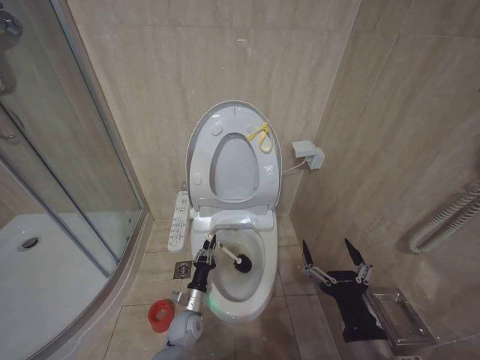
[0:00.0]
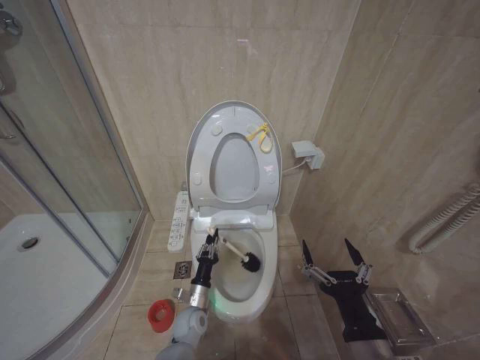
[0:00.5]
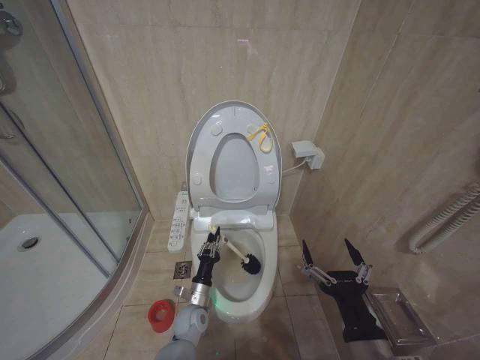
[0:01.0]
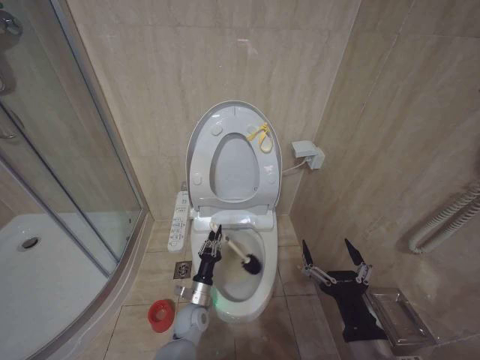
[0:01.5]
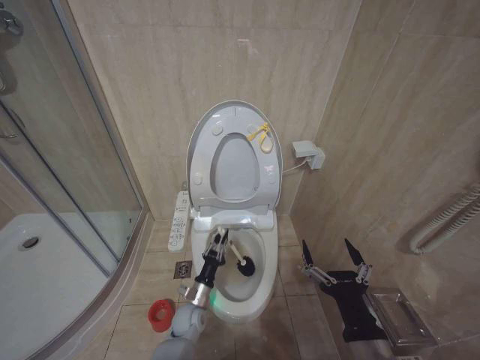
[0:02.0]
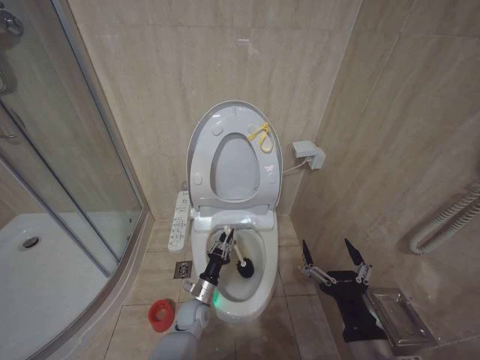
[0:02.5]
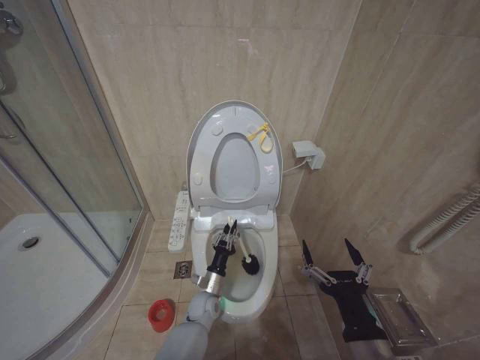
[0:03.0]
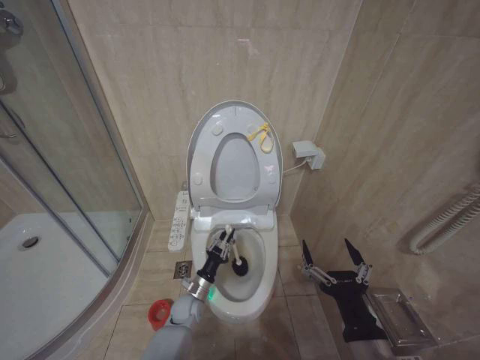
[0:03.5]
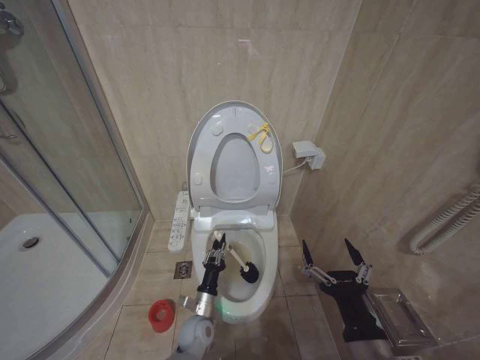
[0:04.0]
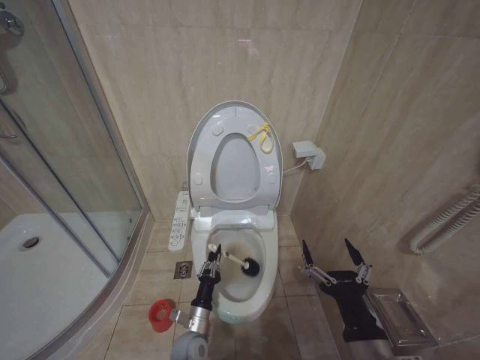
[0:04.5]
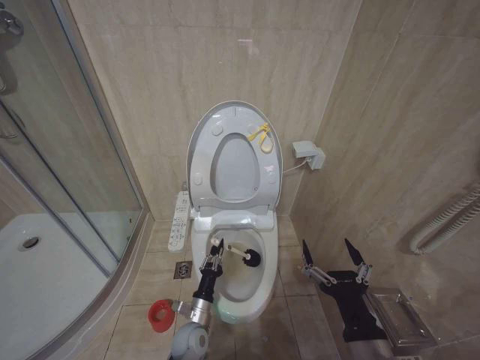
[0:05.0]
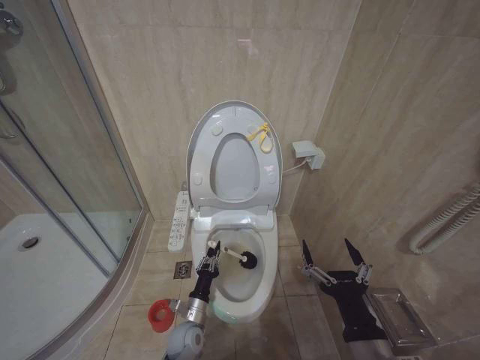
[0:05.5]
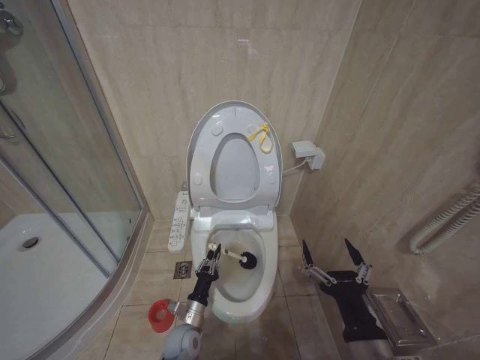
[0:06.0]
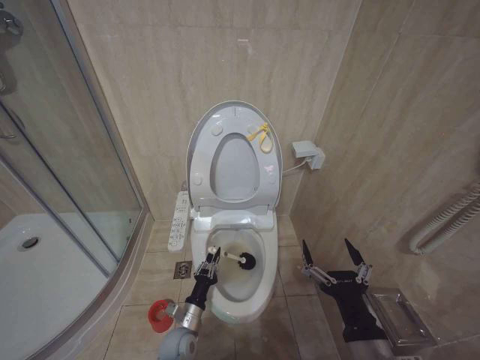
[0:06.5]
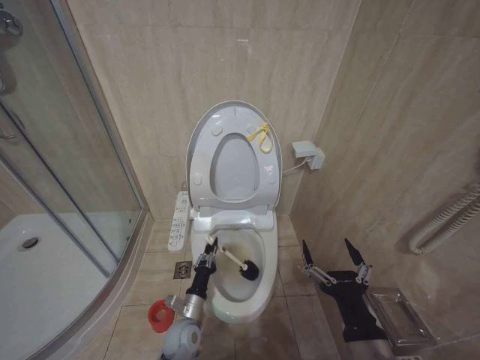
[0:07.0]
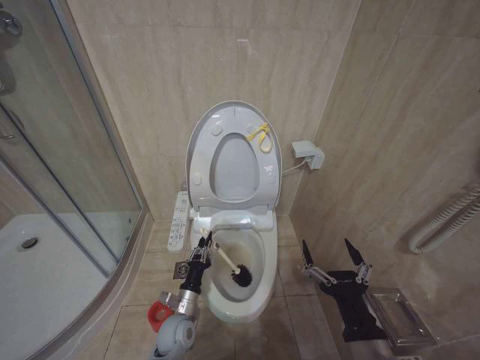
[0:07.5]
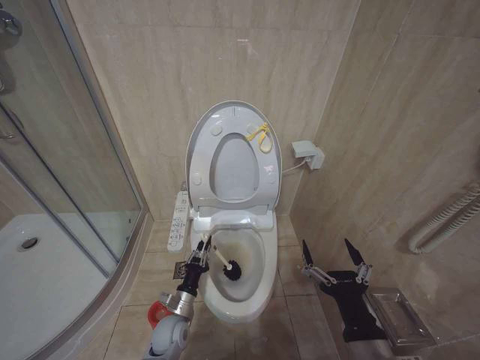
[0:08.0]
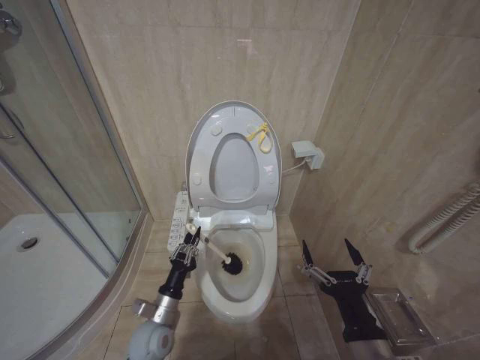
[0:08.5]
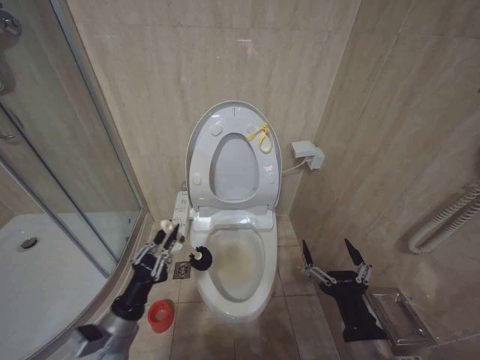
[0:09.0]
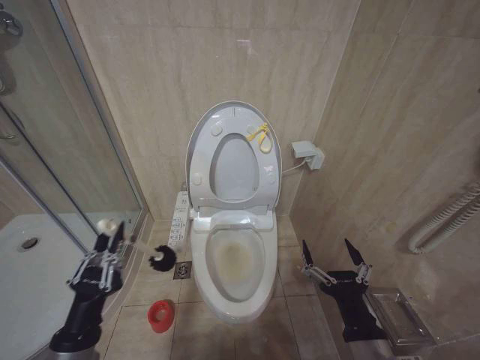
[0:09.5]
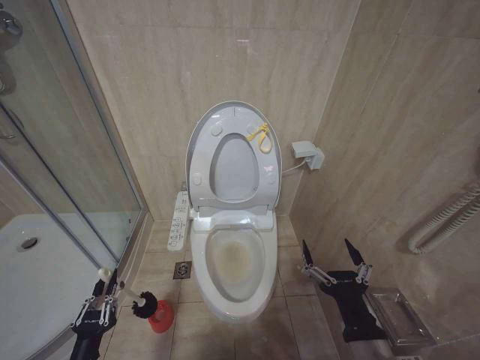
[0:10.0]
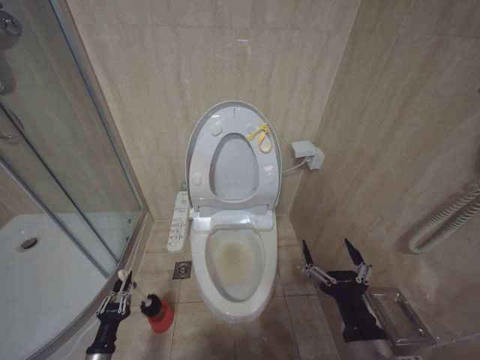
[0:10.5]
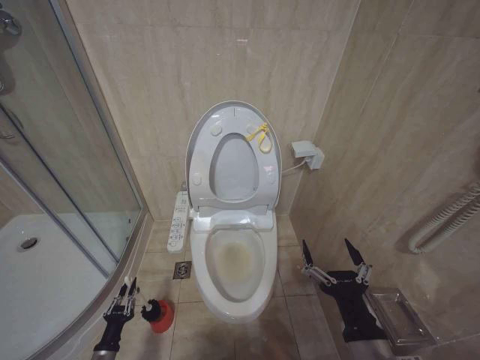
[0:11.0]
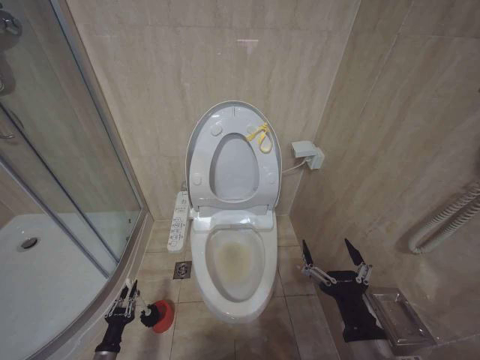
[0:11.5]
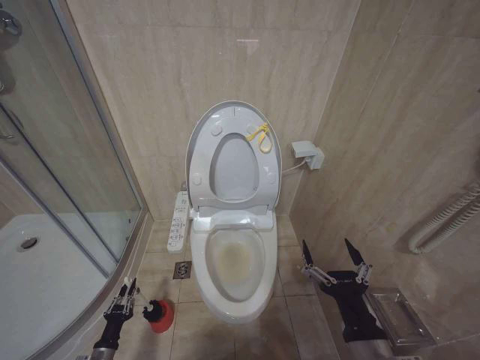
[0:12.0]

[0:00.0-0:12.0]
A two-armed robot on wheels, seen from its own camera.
Task of the whole recording: Open the toilet lid, clean the toilet bowl with a toilet brush, close the toilet lid, and flush.
0:00.0 to 0:02.0: The grippers stay close to where they were, moving slightly.
0:04.0 to 0:06.0: The grippers make only small movements.
0:06.0 to 0:08.0: The grippers stay close to where they were, moving slightly.
0:08.0 to 0:10.0: The left gripper moves backward, to the left and upward, some 25 cm.
0:10.0 to 0:12.0: The left gripper moves downward, forward and to the left, some 20 cm.

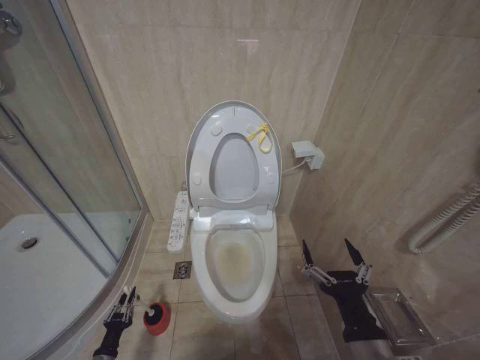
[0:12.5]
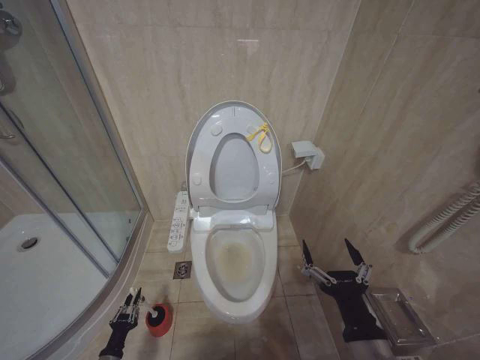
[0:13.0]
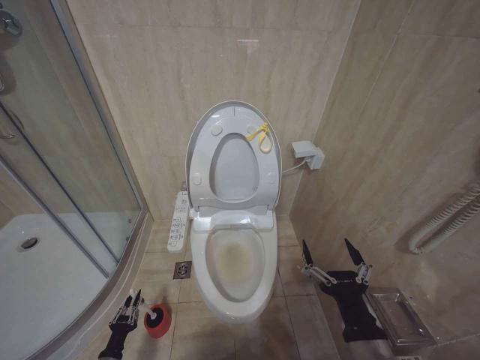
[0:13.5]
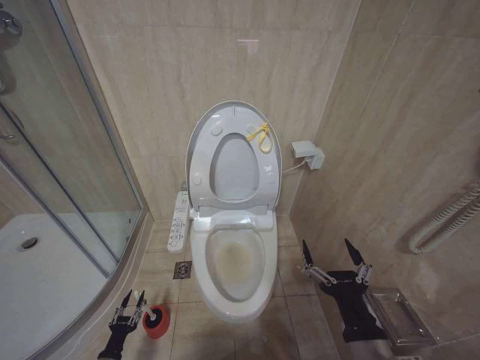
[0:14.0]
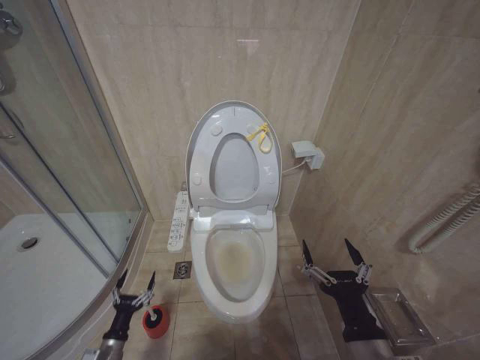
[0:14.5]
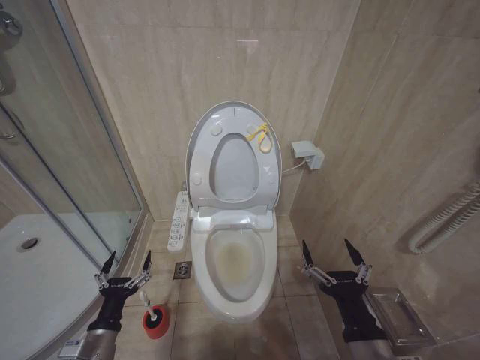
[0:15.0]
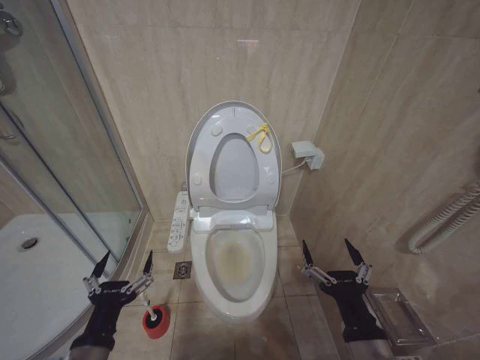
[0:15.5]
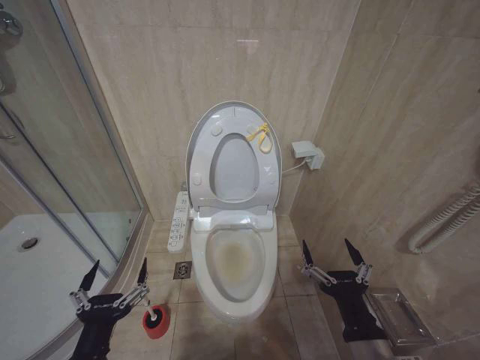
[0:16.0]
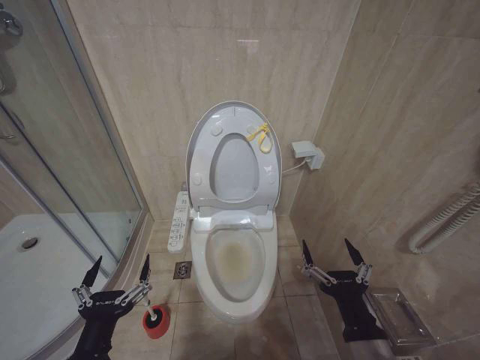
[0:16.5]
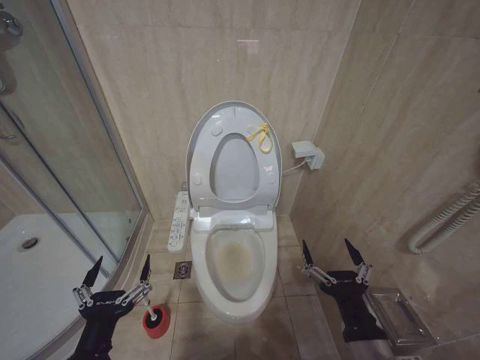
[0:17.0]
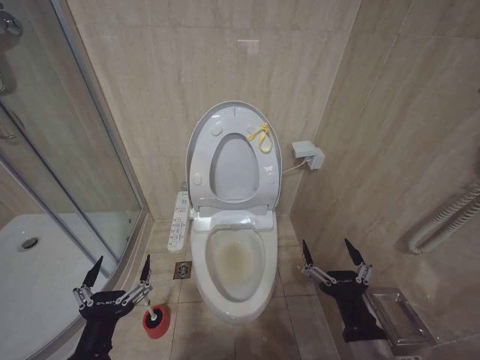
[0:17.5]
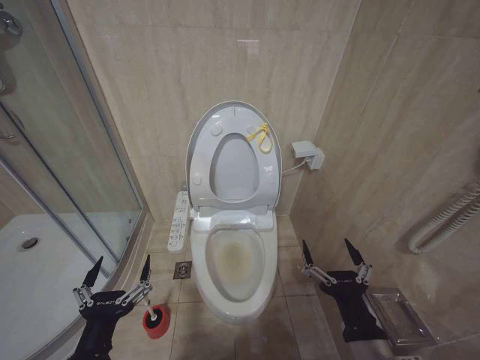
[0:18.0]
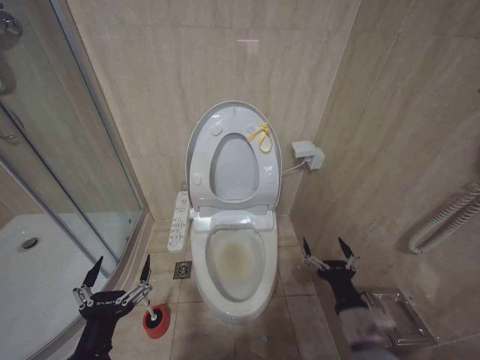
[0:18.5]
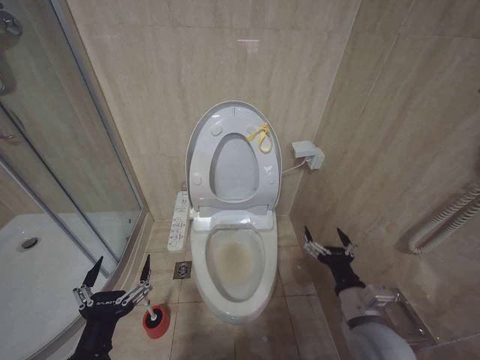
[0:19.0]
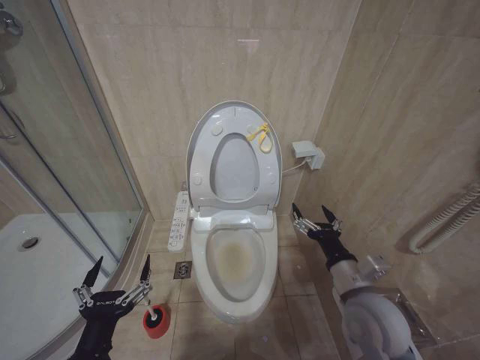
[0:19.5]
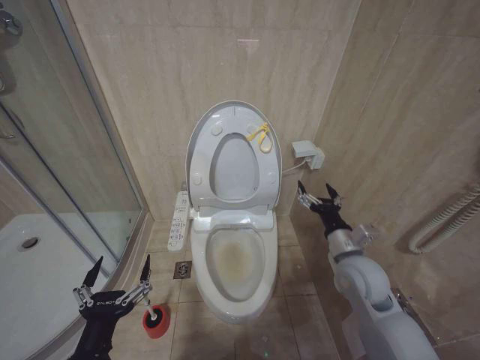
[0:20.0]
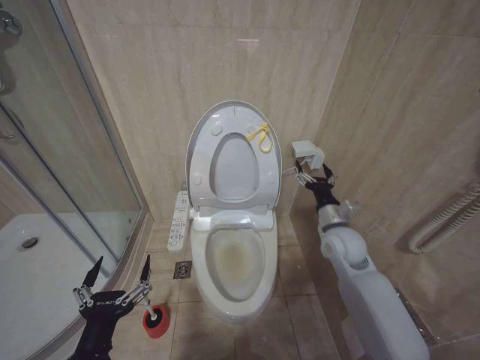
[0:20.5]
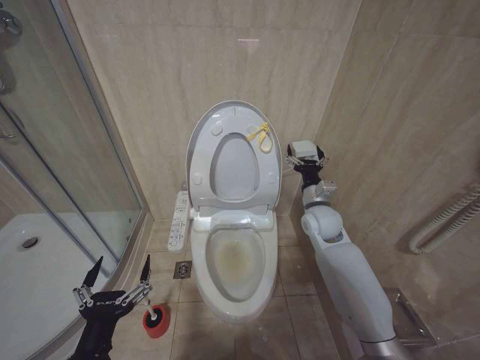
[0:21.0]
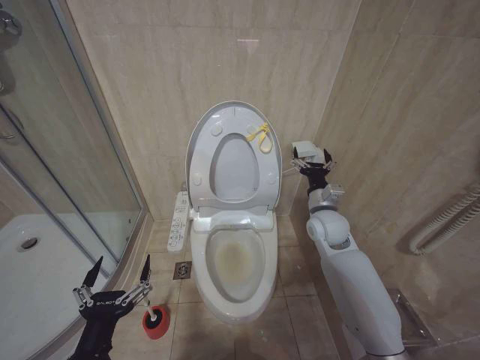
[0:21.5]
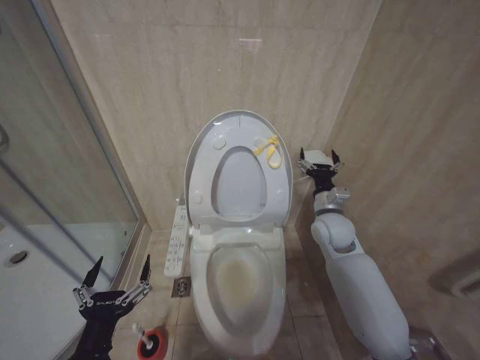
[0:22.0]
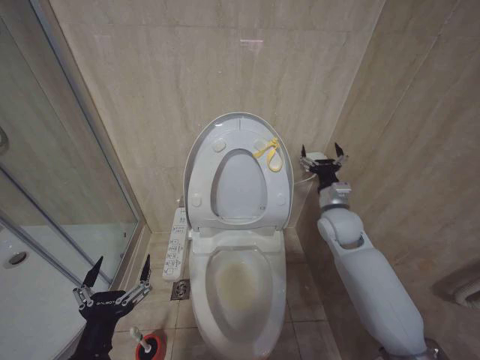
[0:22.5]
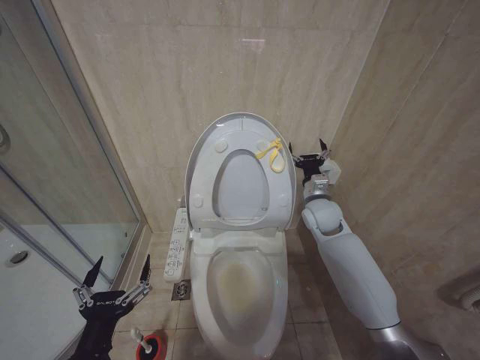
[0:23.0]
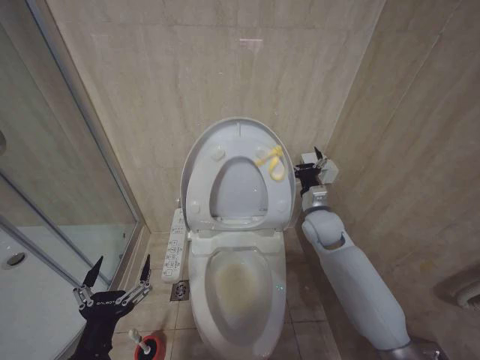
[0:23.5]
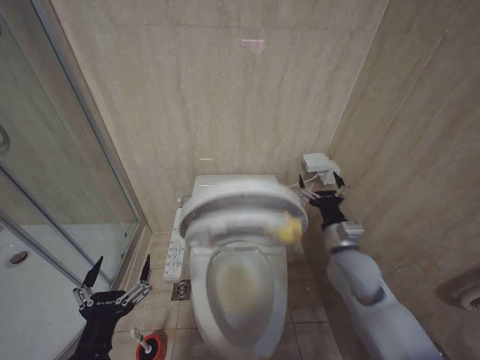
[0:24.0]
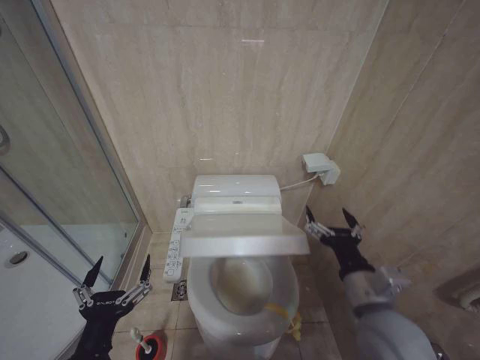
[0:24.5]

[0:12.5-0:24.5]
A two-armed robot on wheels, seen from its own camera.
Task of the whole recording: Open the toilet lid, clean the toilet bowl with a toilet brush, close the toilet lid, and flush.
0:12.5 to 0:14.5: The left gripper opens its fingers.
0:14.5 to 0:16.5: The left gripper moves upward and to the right, approximately 35 cm.
0:16.5 to 0:18.5: The right gripper ends up roughly 5 cm from where it was.
0:18.5 to 0:20.5: The right gripper shifts some 25 cm forward.
0:22.5 to 0:24.5: The right gripper shifts approximately 20 cm backward.

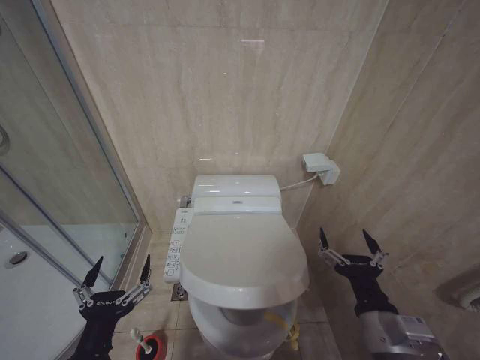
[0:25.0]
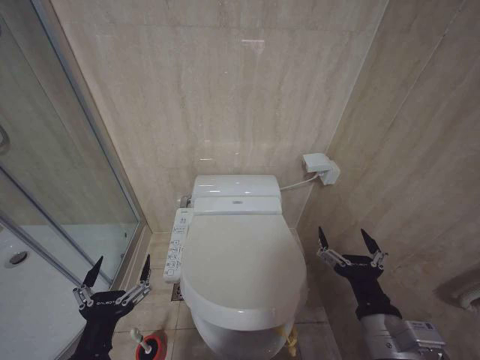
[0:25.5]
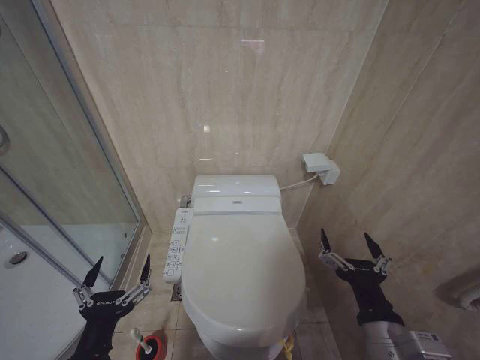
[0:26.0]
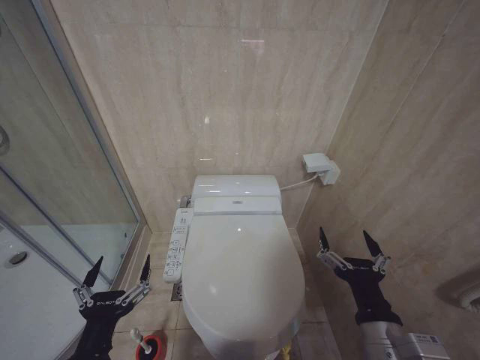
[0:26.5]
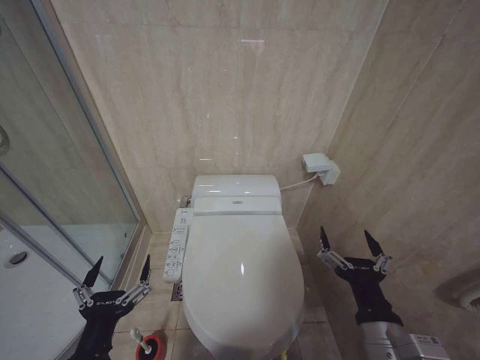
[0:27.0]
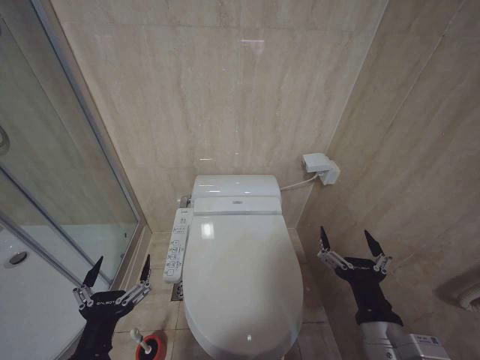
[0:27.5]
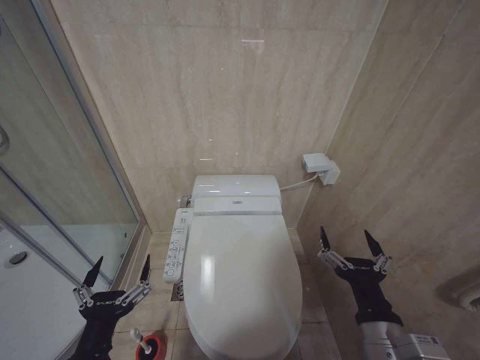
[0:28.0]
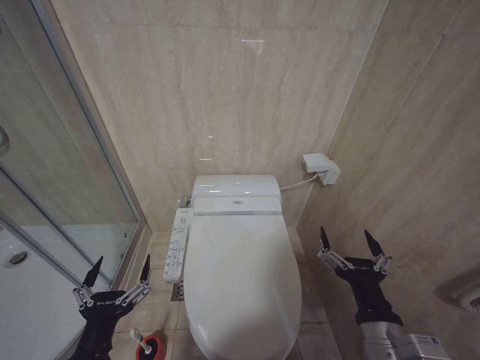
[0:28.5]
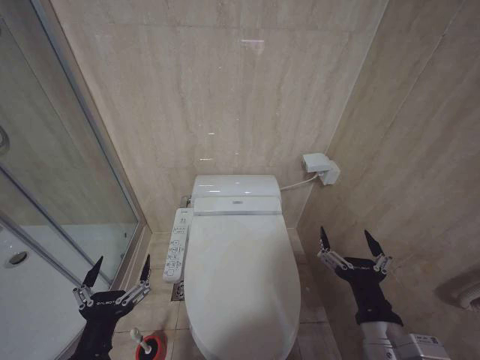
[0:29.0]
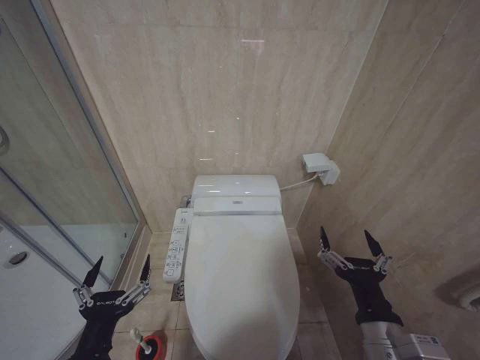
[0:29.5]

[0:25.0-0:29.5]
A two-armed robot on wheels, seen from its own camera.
Task of the whole recording: Open the toilet lid, clean the toilet bowl with a toilet brush, close the toilet lid, and flush.
0:25.0 to 0:27.0: The grippers make only small movements.
0:27.0 to 0:29.5: Neither gripper changes place.
